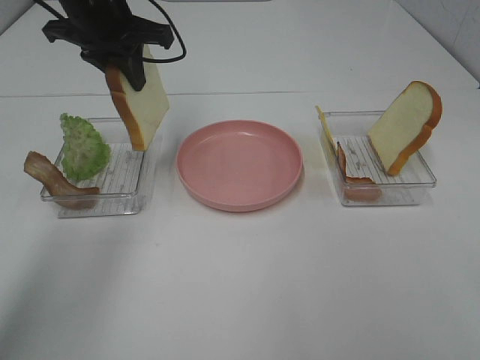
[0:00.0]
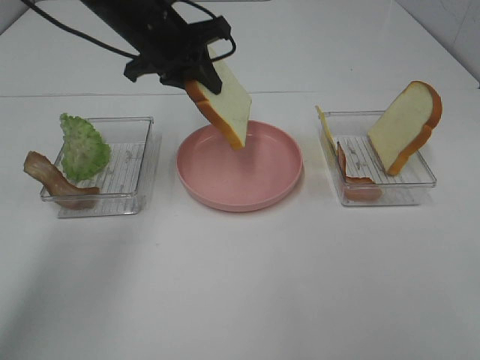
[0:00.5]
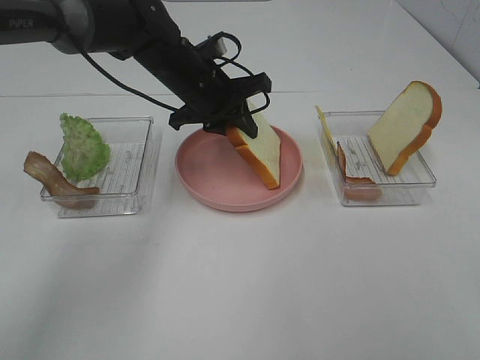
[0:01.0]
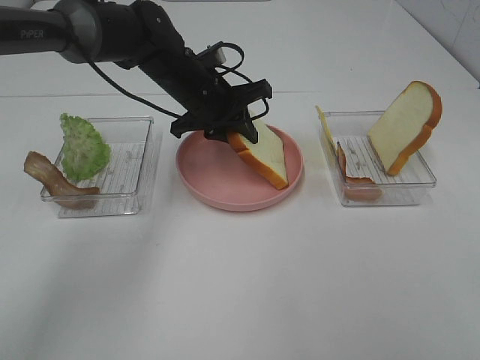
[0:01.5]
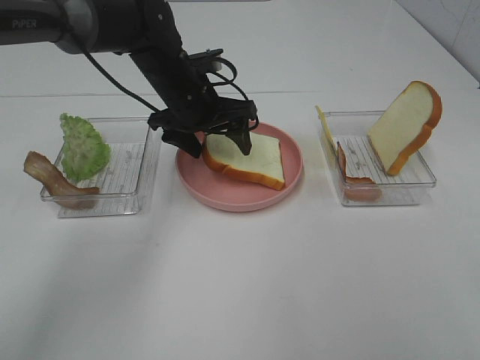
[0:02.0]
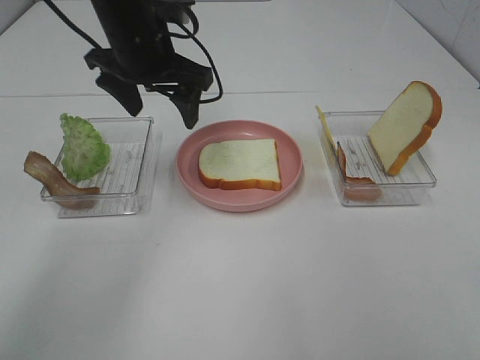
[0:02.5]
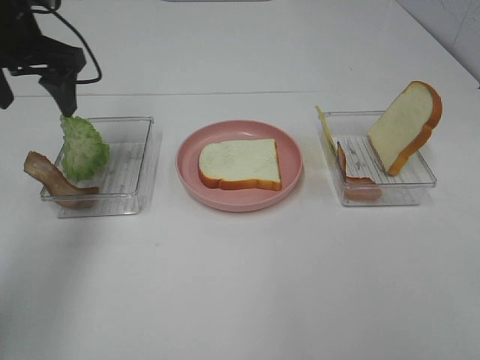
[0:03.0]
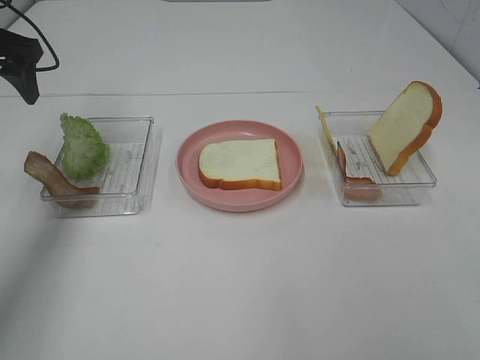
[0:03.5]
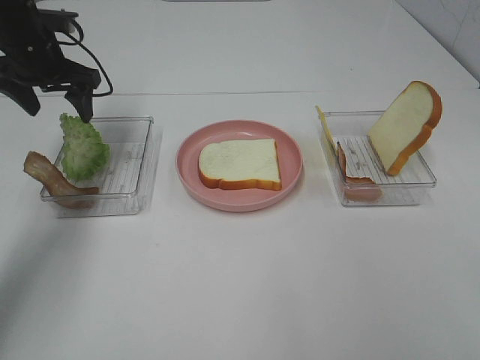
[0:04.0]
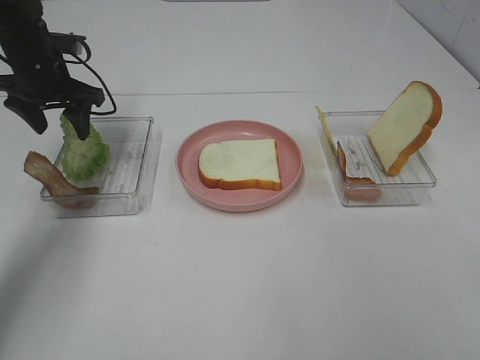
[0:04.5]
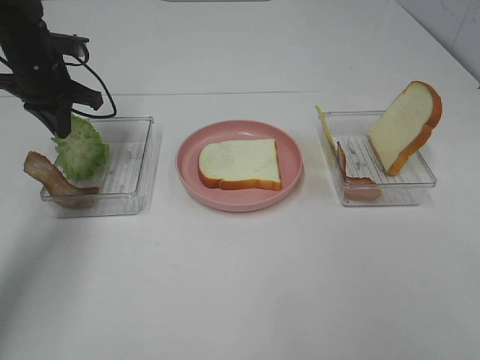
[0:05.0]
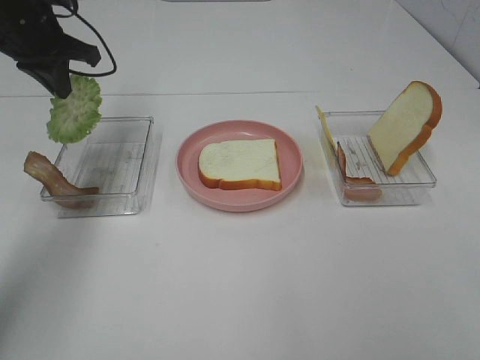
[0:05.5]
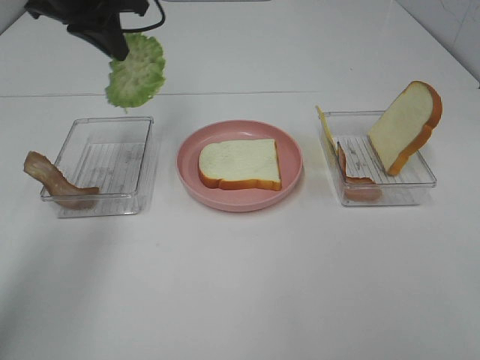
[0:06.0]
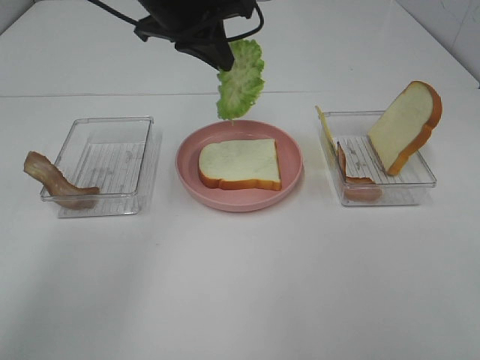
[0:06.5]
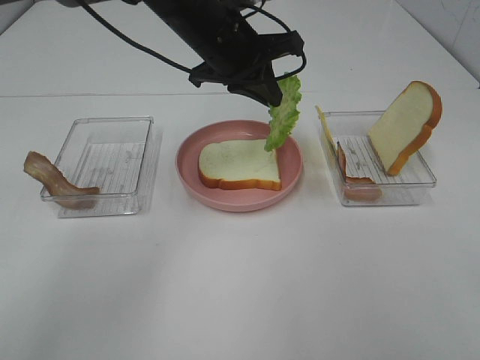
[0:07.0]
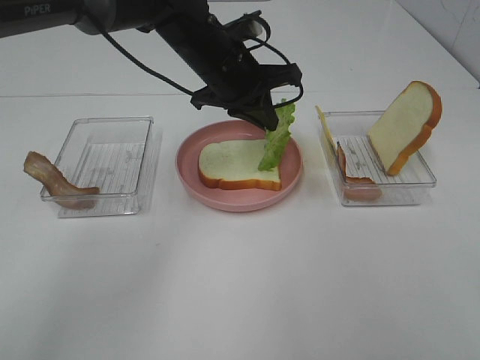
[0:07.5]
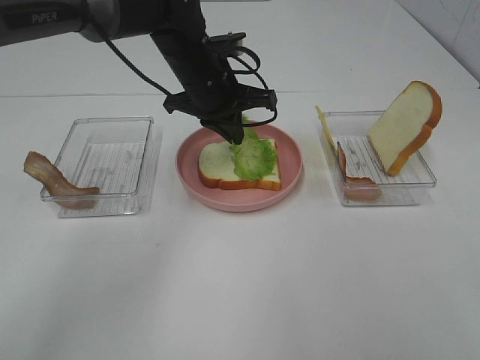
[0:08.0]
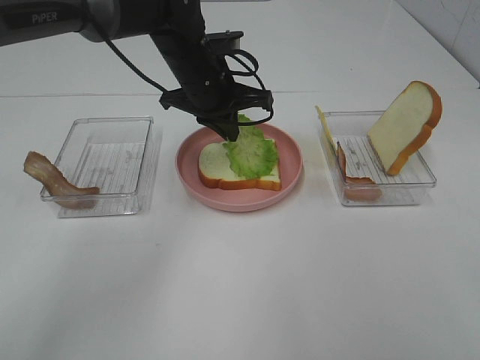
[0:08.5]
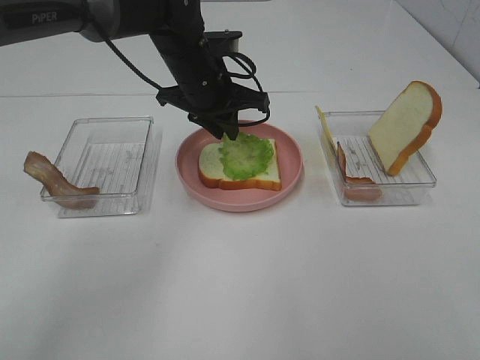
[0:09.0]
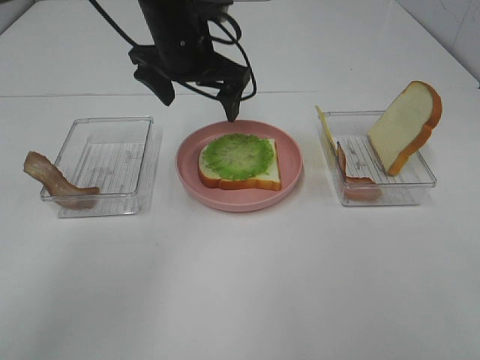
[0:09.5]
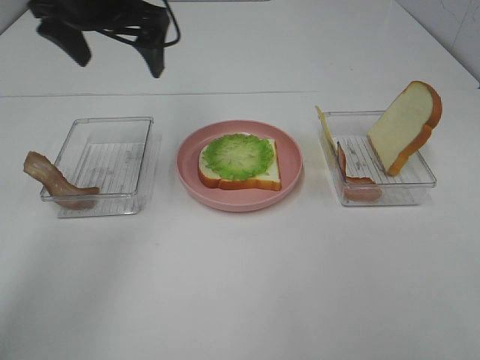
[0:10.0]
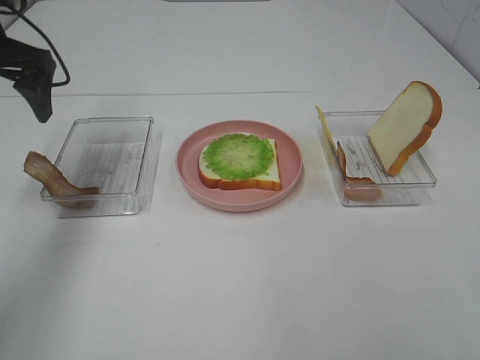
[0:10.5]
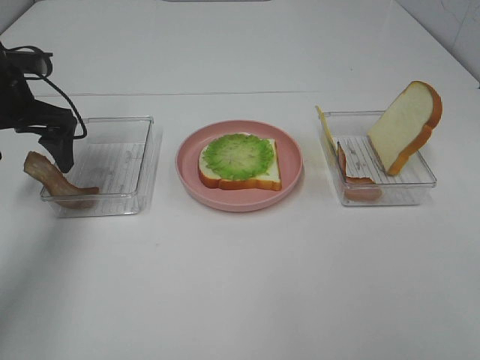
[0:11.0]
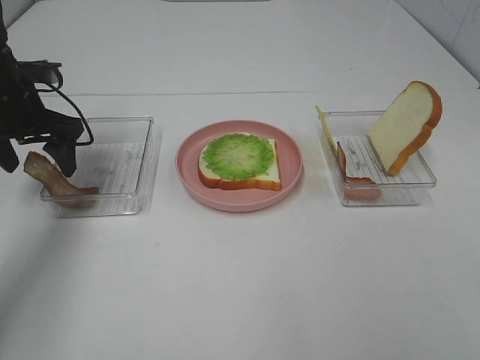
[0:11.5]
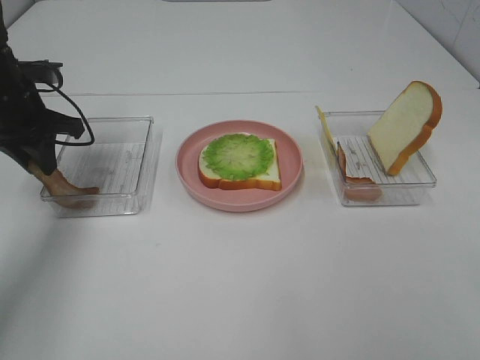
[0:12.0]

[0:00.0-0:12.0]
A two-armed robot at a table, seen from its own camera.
Task of the whole recording: Make sandwiches.
Step, 0:00.0 to 0:02.0: Left hand:place the bread slice on the plate.
Step, 0:02.5 to 0:05.0: Left hand:grab the lettuce slice.
Step, 0:05.5 to 0:09.5: Left hand:place the lettuce slice on the bread slice.
0:00.0 to 0:02.0: The left gripper heads downward and to the right, covering about 15 cm, and opens.
0:02.0 to 0:04.0: The left gripper moves to the left, about 20 cm.
0:04.0 to 0:06.0: The left gripper heads upward and to the right, covering roughly 15 cm, and closes.
0:06.0 to 0:08.0: The left gripper heads to the right and downward, covering roughly 20 cm.
0:08.0 to 0:10.0: The left gripper is displaced upward and to the left by some 20 cm, and opens.
0:10.0 to 0:12.0: The left gripper moves downward and to the left, some 15 cm, and closes.

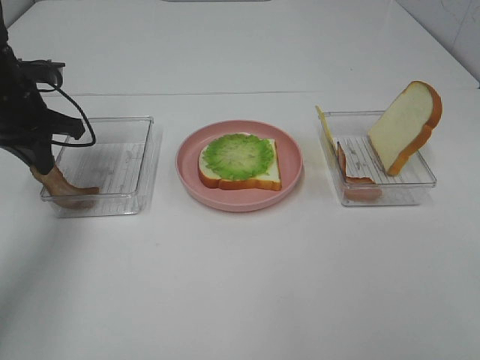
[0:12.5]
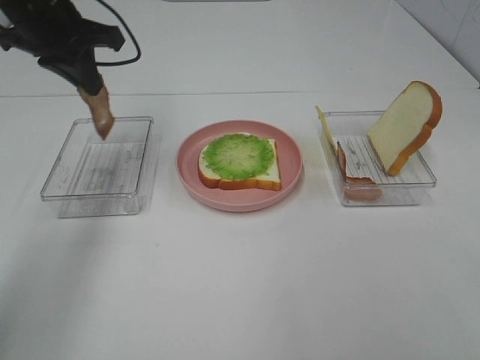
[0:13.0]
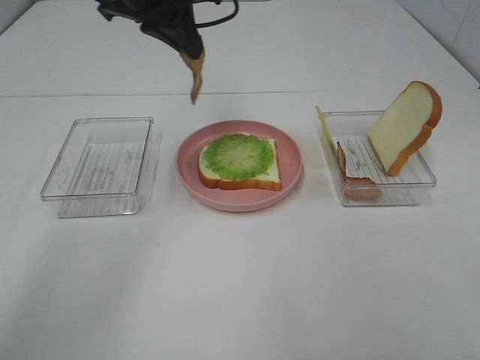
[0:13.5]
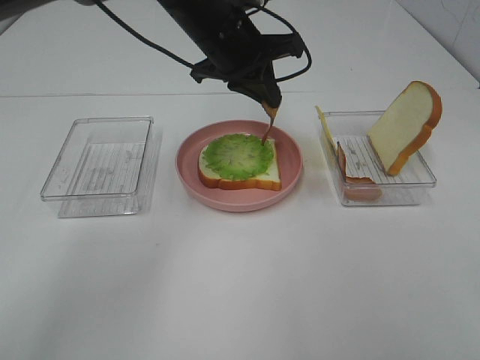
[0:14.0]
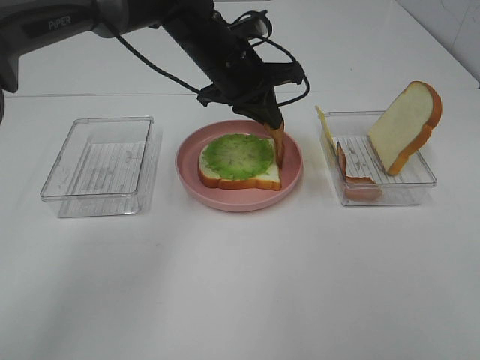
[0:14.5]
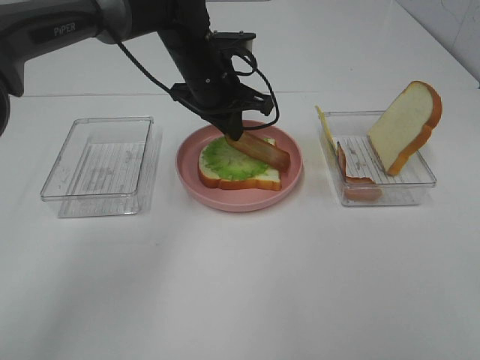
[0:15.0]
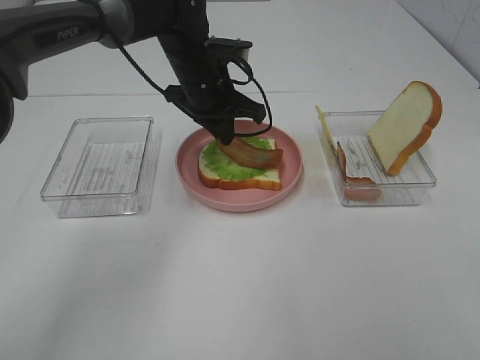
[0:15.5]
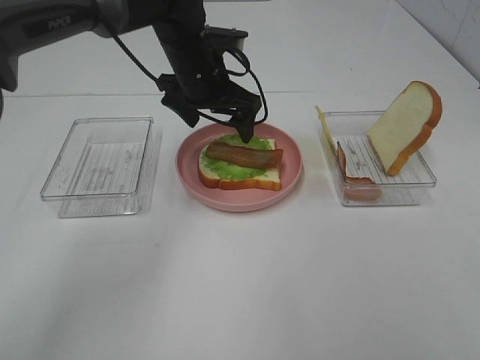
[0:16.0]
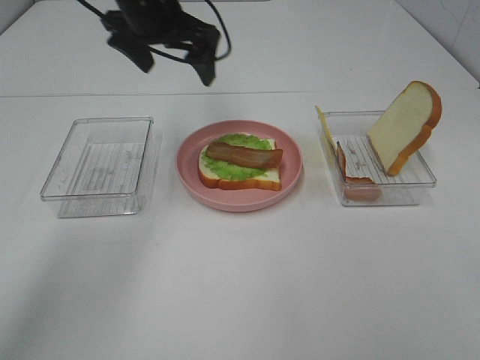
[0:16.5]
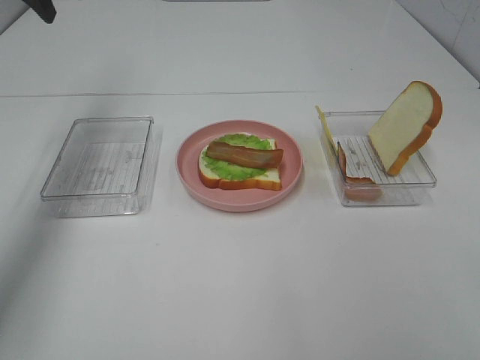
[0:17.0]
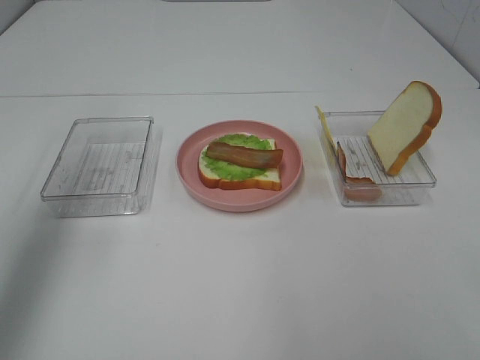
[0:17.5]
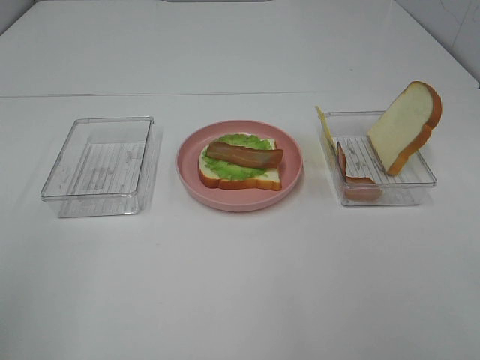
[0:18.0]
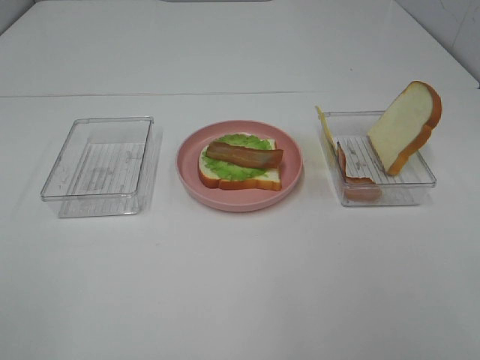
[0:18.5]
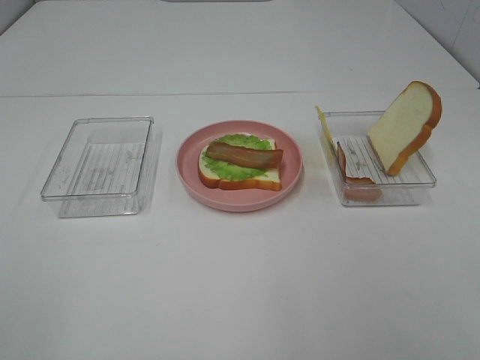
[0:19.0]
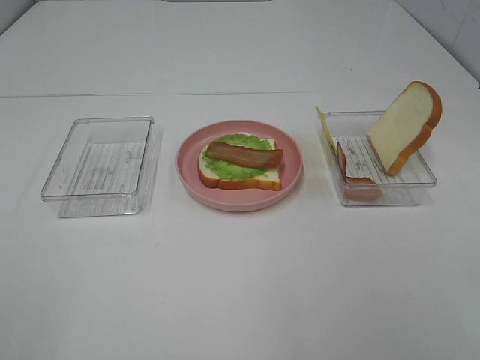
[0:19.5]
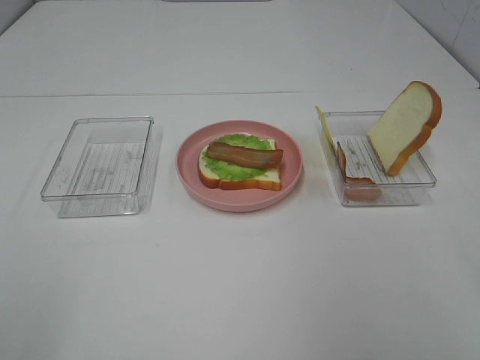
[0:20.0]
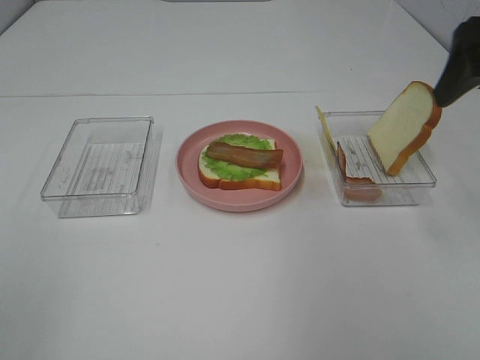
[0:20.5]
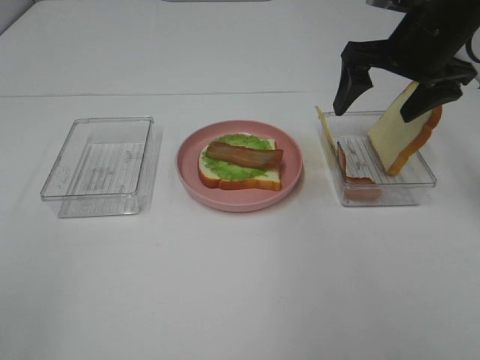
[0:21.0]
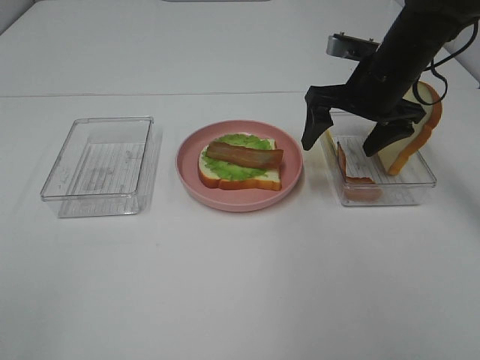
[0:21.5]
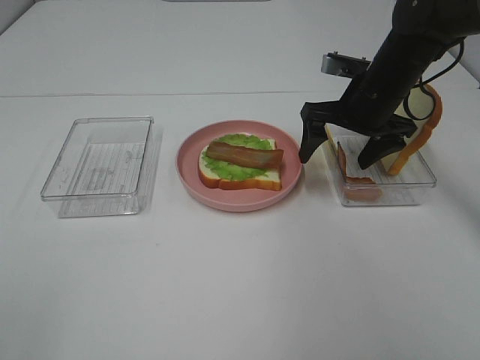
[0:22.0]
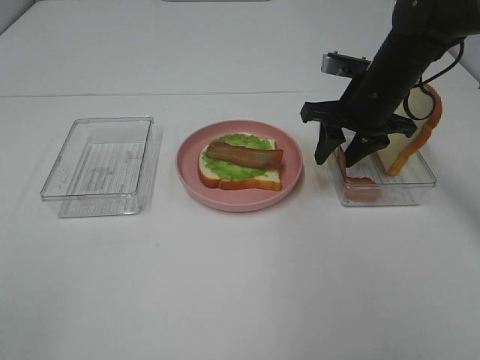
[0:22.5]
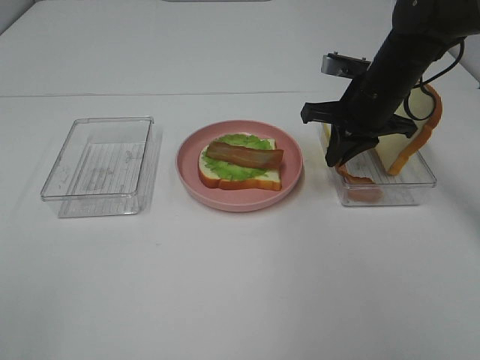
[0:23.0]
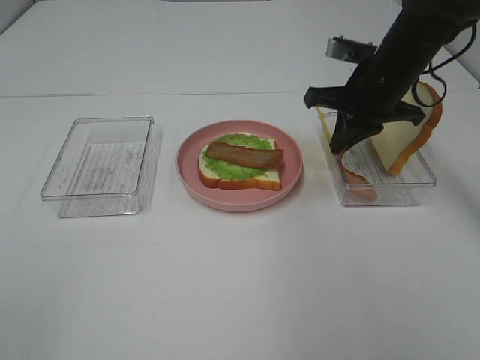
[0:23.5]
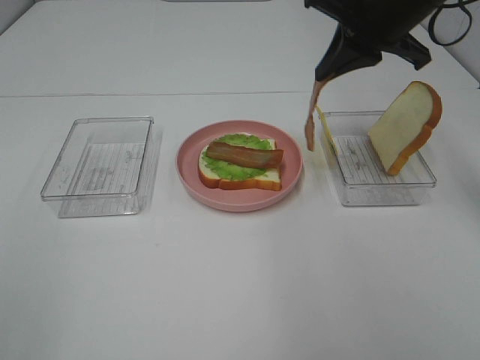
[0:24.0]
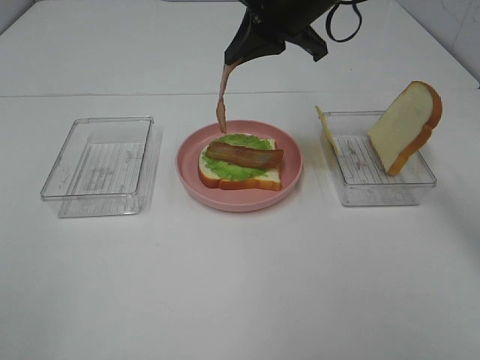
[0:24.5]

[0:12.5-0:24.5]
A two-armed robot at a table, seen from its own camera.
Task of the whole recording: Make sandwiches.
Step, 0:12.5 to 0:16.0: Left hand:place bacon on lettuce slice.
Step, 0:16.5 to 0:23.0: Right hand:grab the bacon.
0:12.5 to 0:14.5: The left gripper is displaced to the right by roughly 25 cm.
0:14.5 to 0:16.5: The left gripper is displaced to the left and upward by roughly 15 cm, and opens its fingers.
0:16.5 to 0:18.5: The left gripper heads backward and to the left, covering about 50 cm.
0:18.5 to 0:20.5: The right gripper moves forward, about 30 cm.
0:20.5 to 0:22.5: The right gripper heads downward, forward and to the left, covering some 20 cm, and closes.
0:22.5 to 0:24.5: The right gripper is displaced upward and to the left by some 15 cm, and closes up.

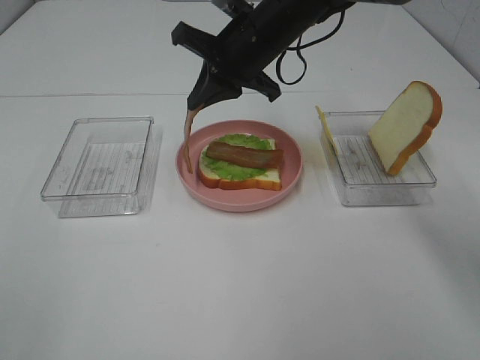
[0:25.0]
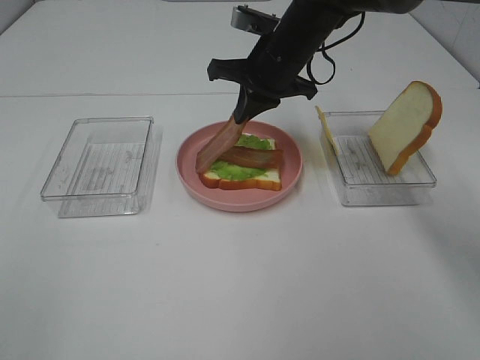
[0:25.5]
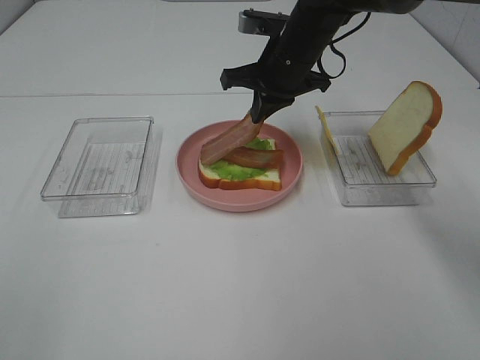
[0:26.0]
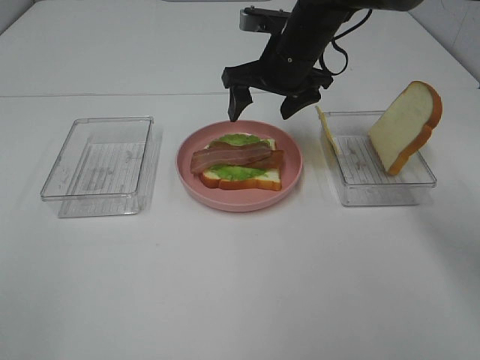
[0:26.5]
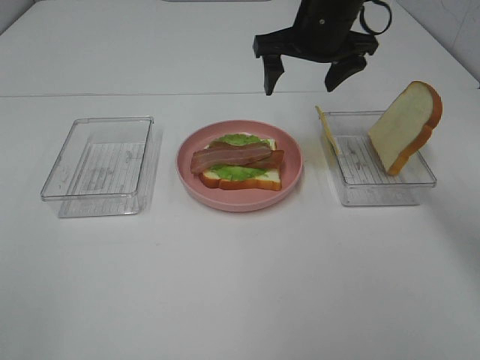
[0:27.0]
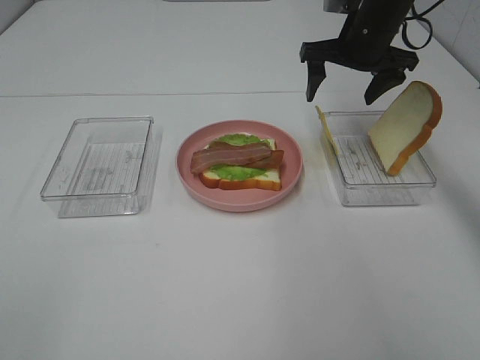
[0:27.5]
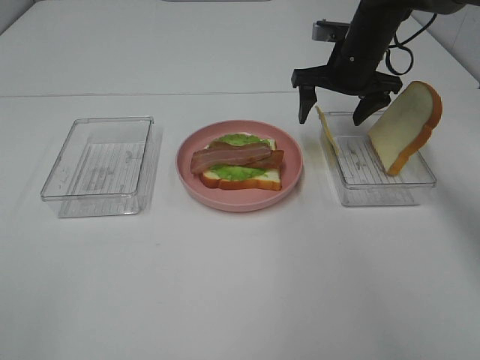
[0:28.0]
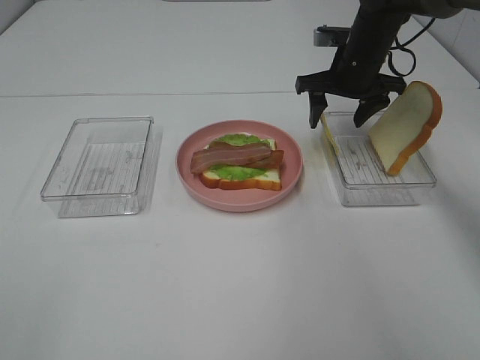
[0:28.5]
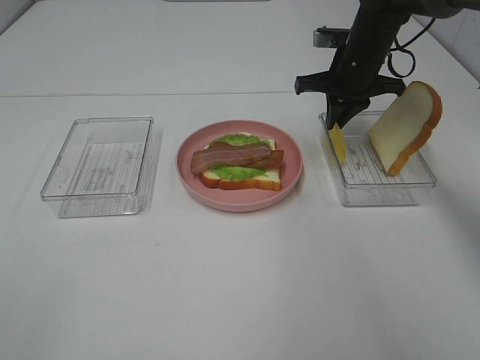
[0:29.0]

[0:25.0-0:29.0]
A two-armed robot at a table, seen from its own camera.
Task of the whole recording: Make sandwiches.
0:25.0 to 0:27.0: The right gripper shifts roughly 10 cm to the right, and opens up.
0:27.0 to 0:29.0: The right gripper goes approximately 10 cm downward and to the right, and closes.
